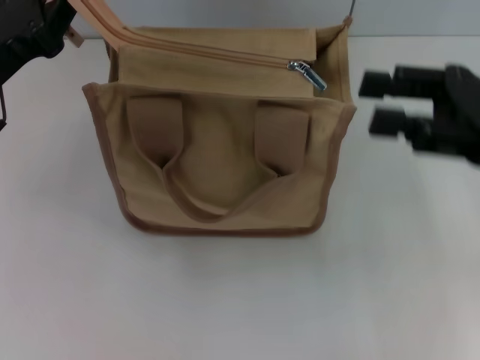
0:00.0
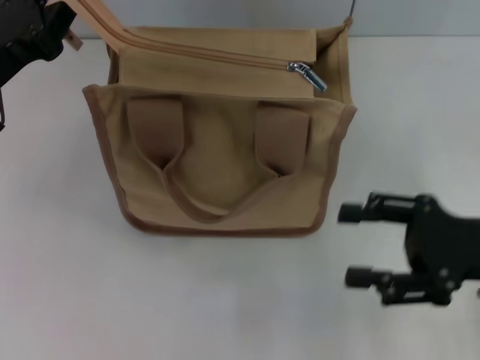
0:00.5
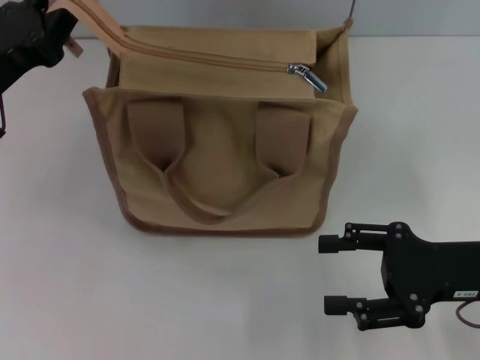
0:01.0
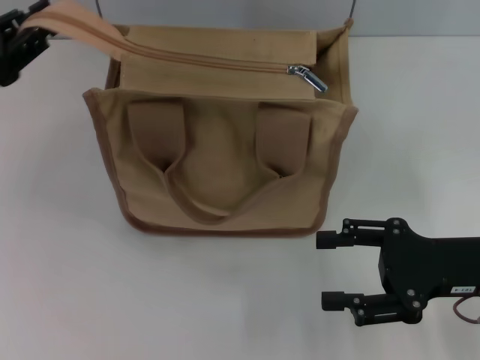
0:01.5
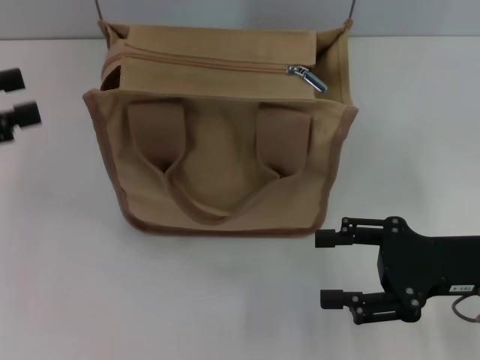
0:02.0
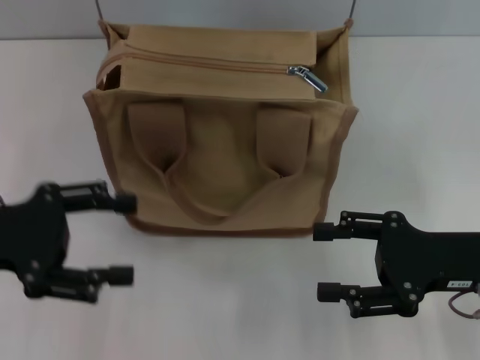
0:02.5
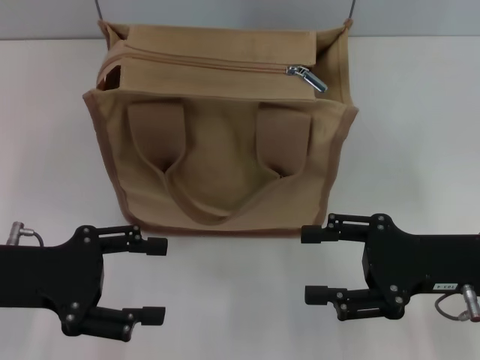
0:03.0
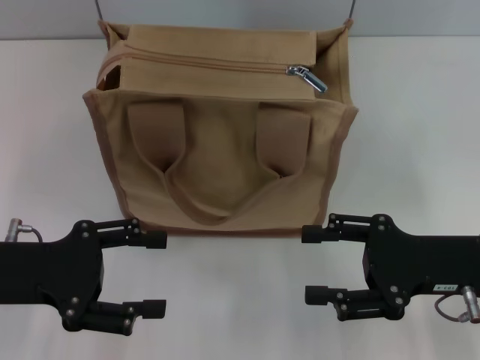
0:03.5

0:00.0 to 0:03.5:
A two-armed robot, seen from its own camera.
Step, 0:00.0 to 0:02.0: Grab the zipper with your left hand.
0:00.0 to 0:02.0: The right gripper shifts approximately 10 cm downward, and opens its fingers; the left gripper moves to the left, approximately 10 cm, and opens up.
0:02.0 to 0:03.5: The left gripper moves to the right and downward, about 10 cm, and opens.

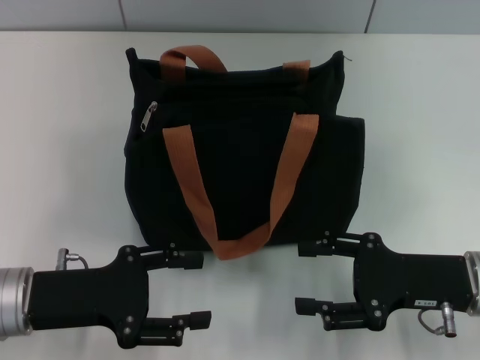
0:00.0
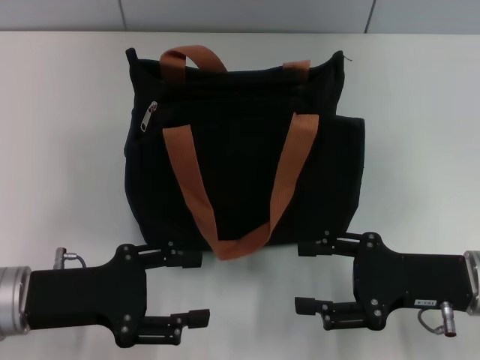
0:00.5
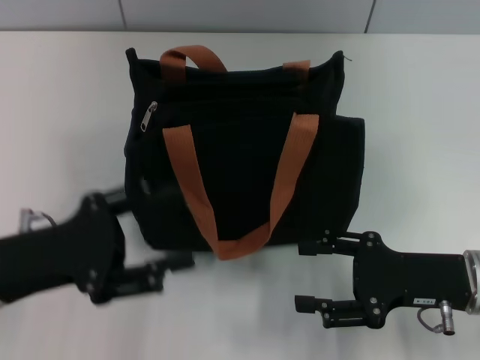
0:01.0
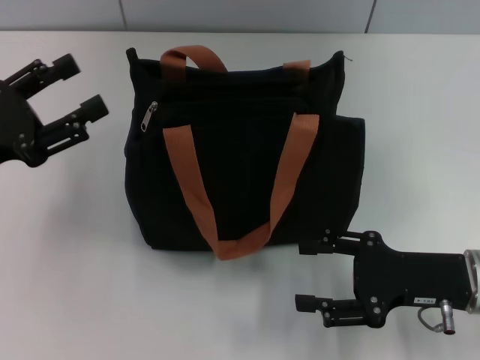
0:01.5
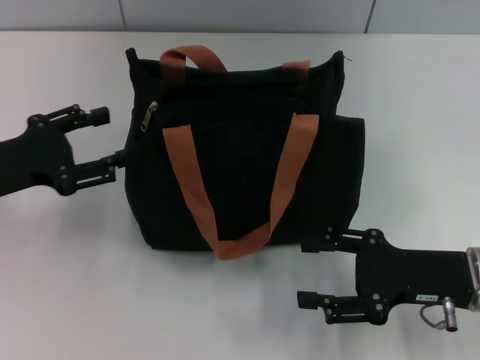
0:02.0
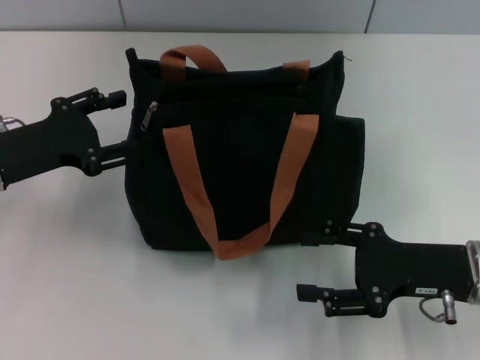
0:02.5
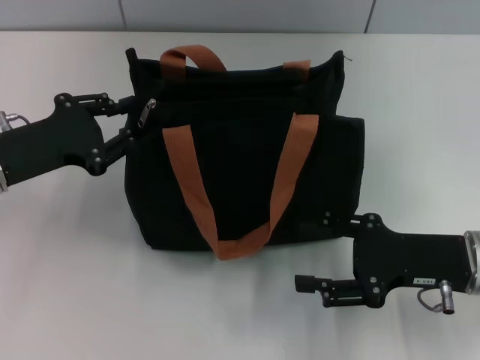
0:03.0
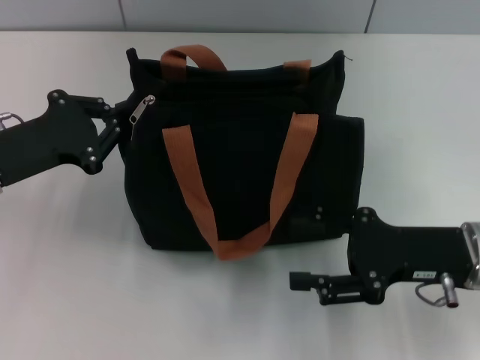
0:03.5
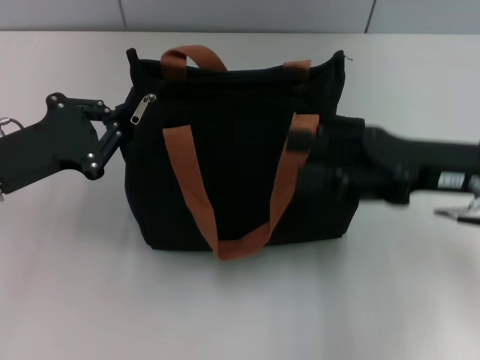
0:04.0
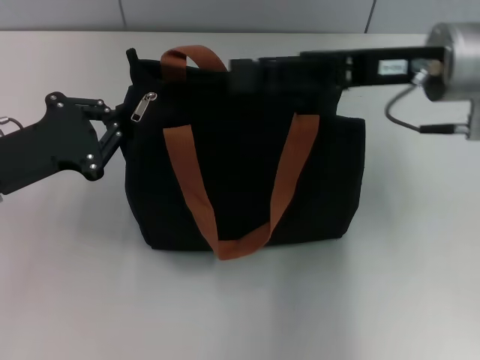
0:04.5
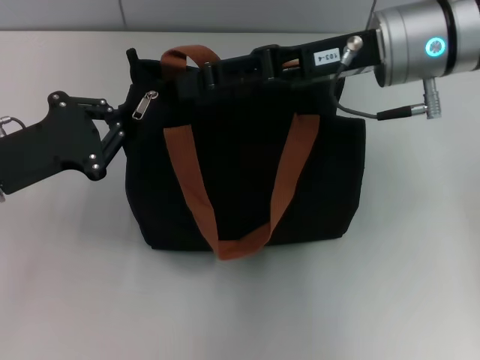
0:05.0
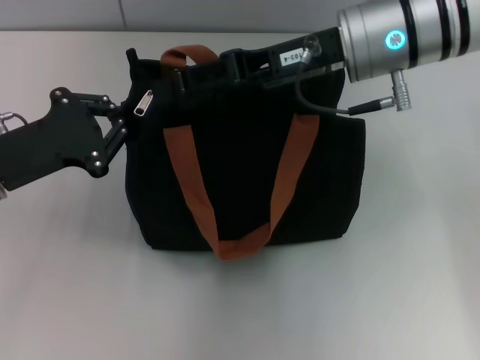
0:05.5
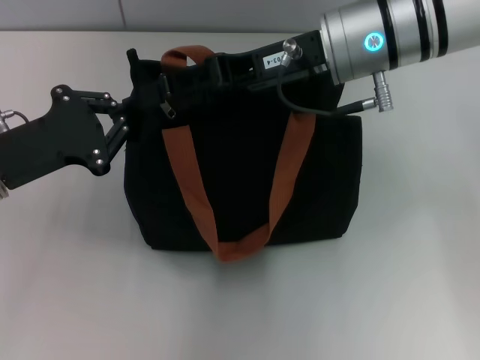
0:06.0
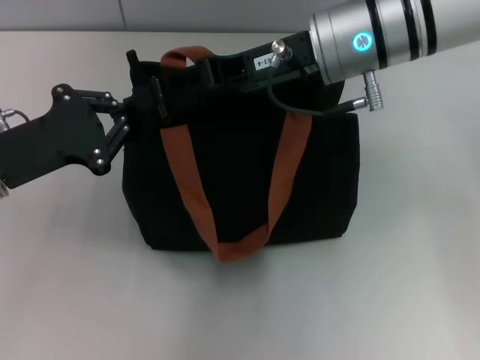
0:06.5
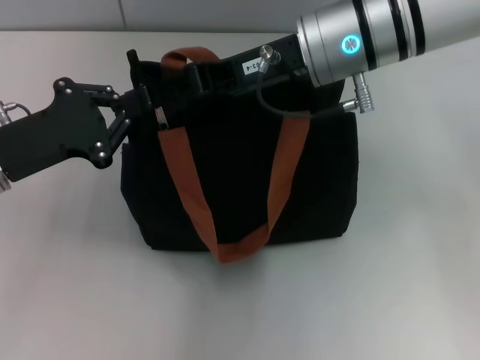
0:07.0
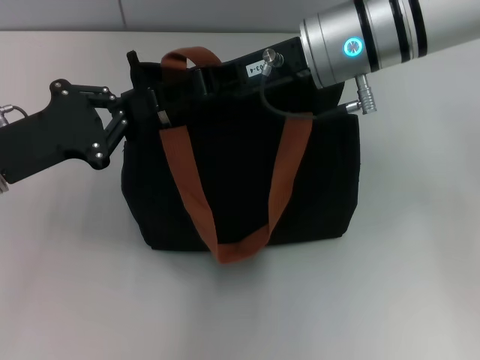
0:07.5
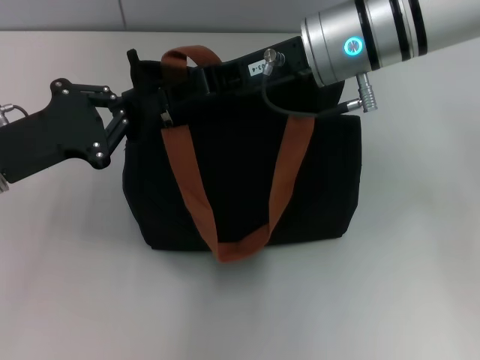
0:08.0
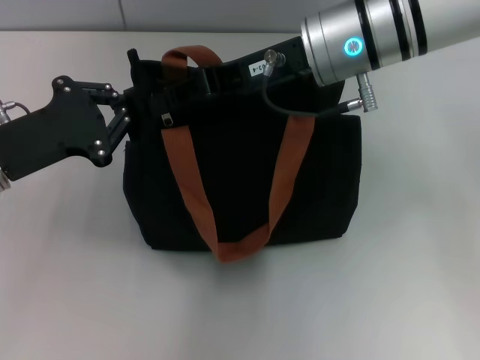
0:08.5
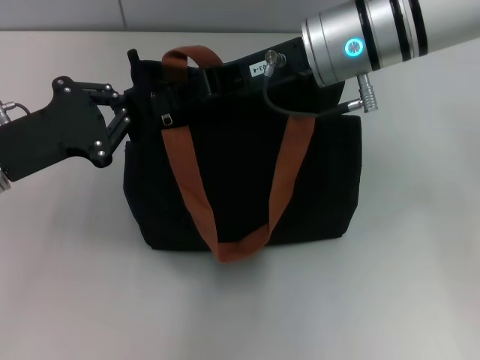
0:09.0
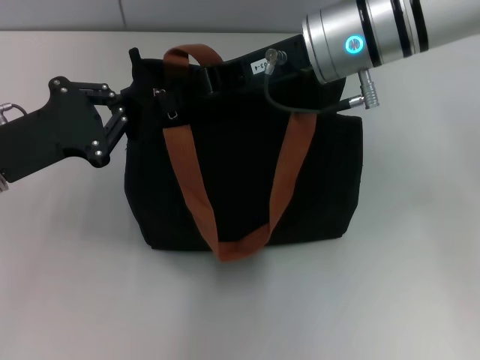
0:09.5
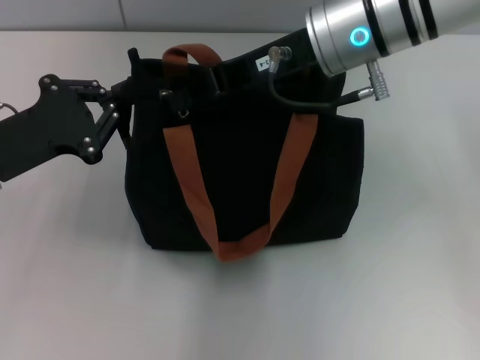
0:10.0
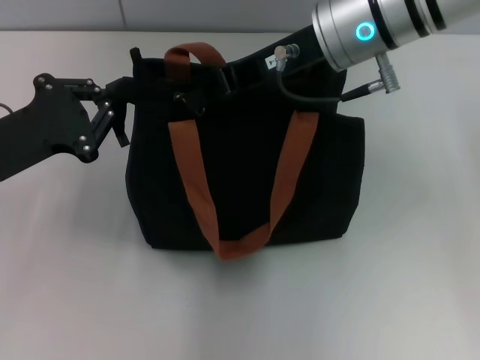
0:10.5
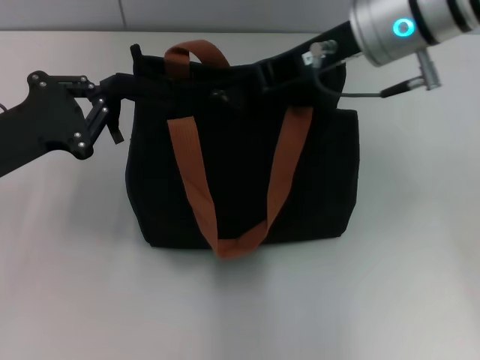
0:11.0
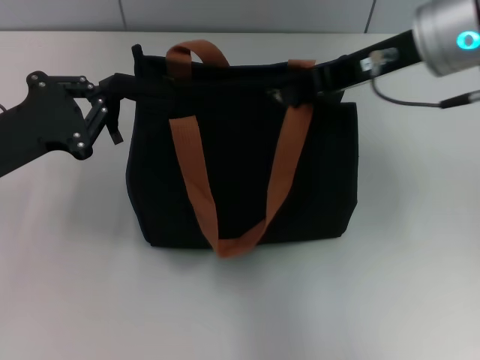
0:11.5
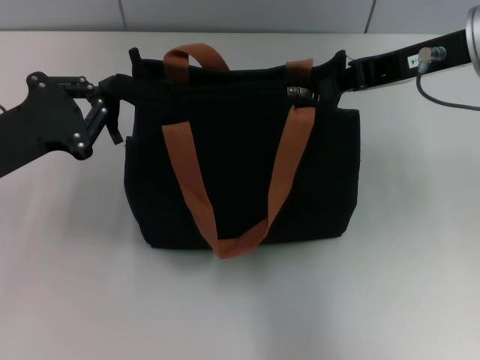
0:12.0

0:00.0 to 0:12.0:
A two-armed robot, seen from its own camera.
0:00.0 to 0:02.0: The left gripper shifts approximately 10 cm forward and to the left.
0:02.0 to 0:04.0: The right gripper shifts approximately 10 cm upward and forward. The left gripper closes its fingers.
0:04.0 to 0:06.0: The right gripper heads to the left, forward and upward, covering approximately 15 cm.
0:06.0 to 0:08.0: The right gripper closes its fingers.
0:08.0 to 0:10.0: The right gripper closes its fingers.
0:10.0 to 0:12.0: The right gripper shifts roughly 10 cm to the right.

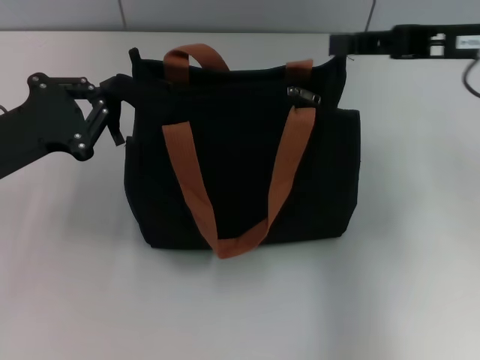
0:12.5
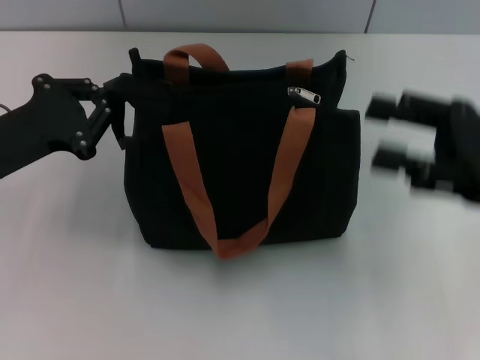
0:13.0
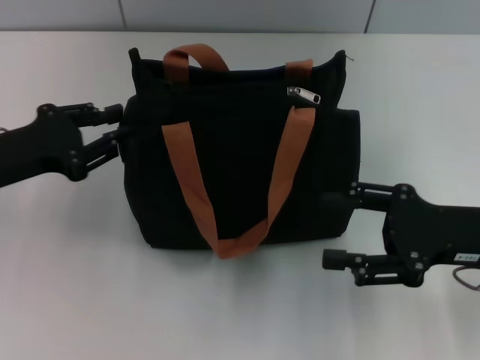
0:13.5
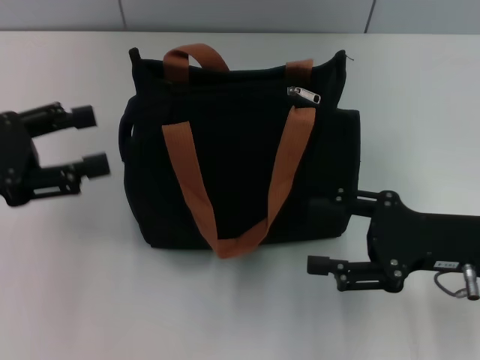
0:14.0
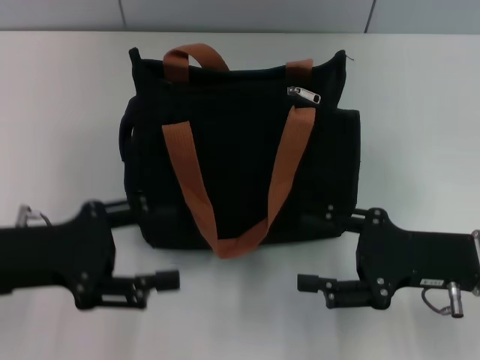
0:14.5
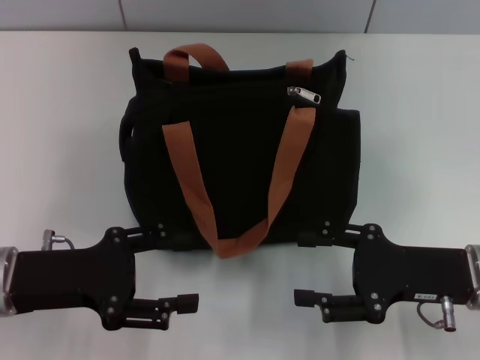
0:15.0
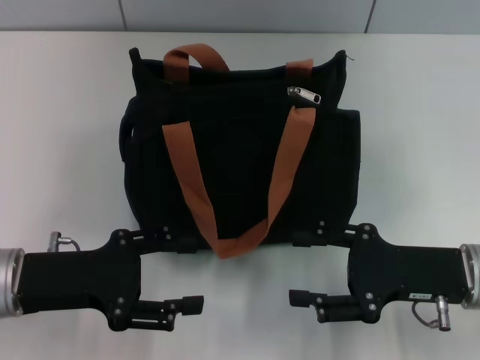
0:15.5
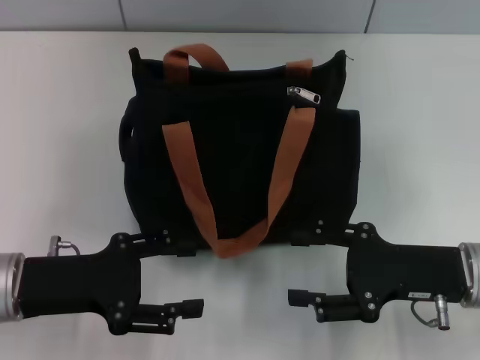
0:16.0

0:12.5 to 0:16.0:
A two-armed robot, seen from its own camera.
Step, 0:13.0 to 0:13.5: Grab the zipper with your left hand.
0:12.5 to 0:14.5: The left gripper travels backward by roughly 5 cm, and opens its fingers, while the right gripper heads downward and backward, covering roughly 20 cm, and opens up.
0:14.5 to 0:16.0: The grippers stay close to where they were, moving slightly.
